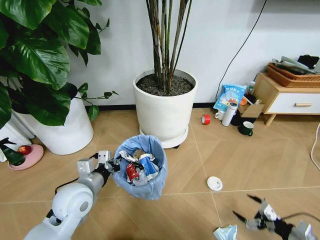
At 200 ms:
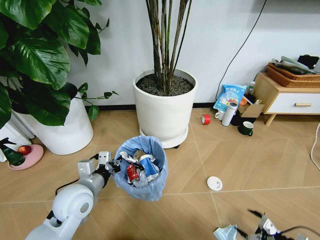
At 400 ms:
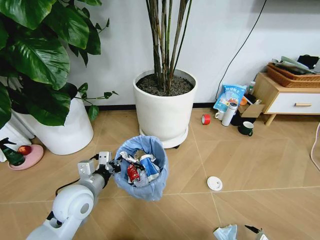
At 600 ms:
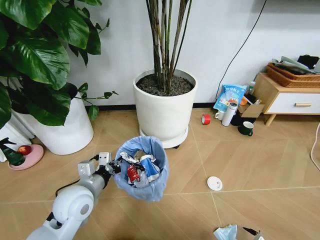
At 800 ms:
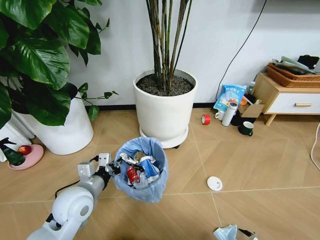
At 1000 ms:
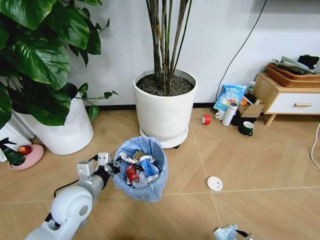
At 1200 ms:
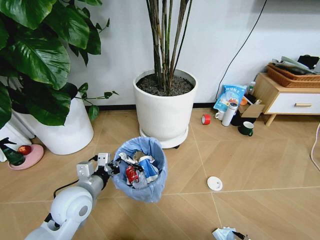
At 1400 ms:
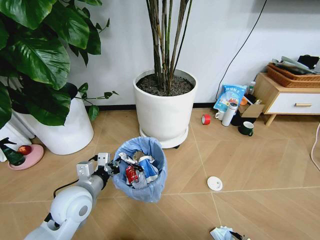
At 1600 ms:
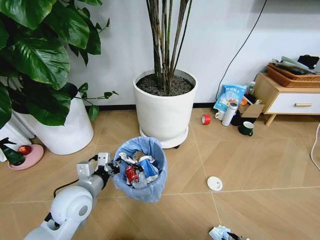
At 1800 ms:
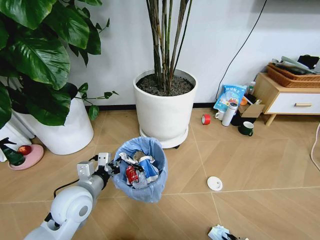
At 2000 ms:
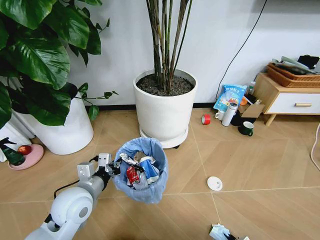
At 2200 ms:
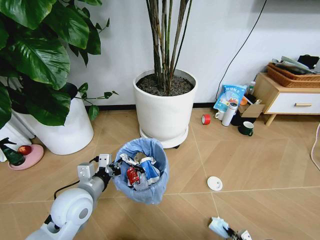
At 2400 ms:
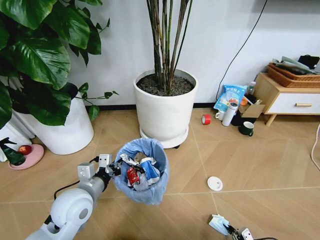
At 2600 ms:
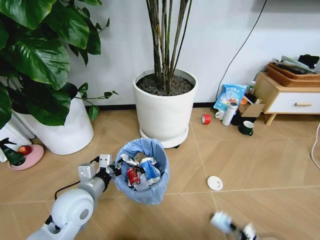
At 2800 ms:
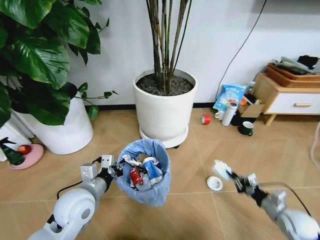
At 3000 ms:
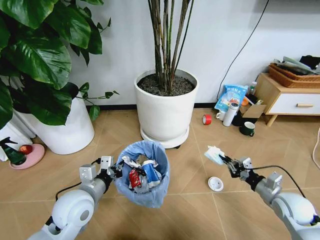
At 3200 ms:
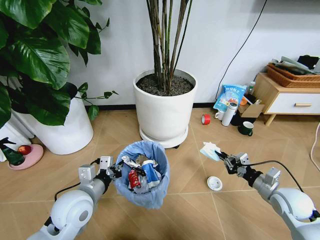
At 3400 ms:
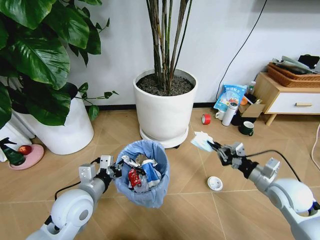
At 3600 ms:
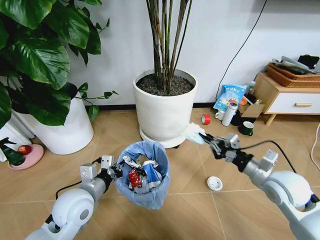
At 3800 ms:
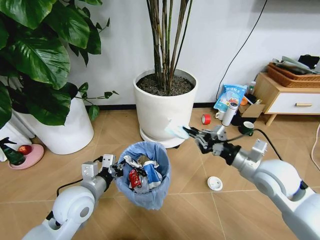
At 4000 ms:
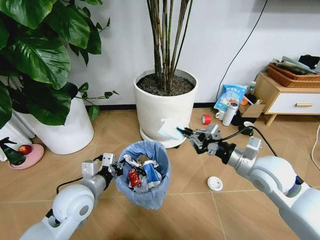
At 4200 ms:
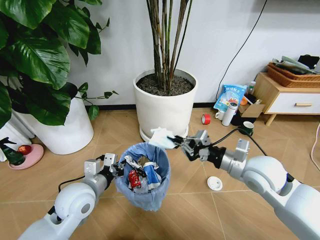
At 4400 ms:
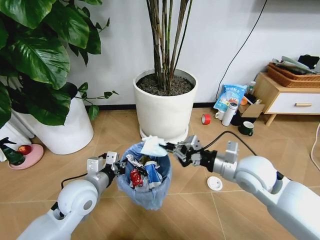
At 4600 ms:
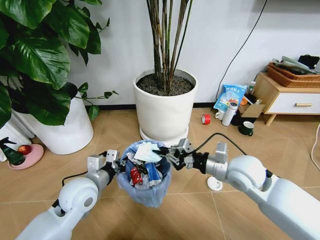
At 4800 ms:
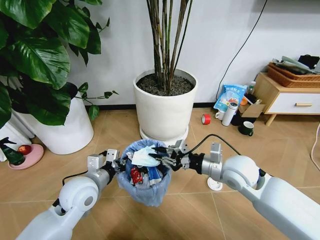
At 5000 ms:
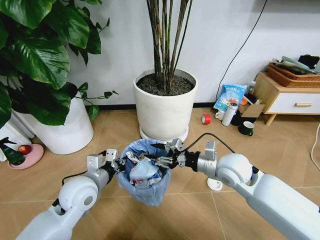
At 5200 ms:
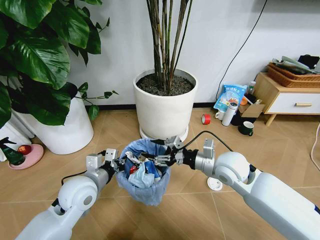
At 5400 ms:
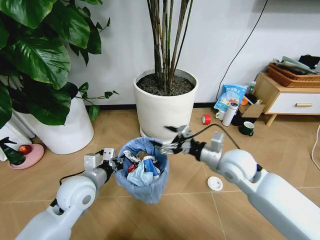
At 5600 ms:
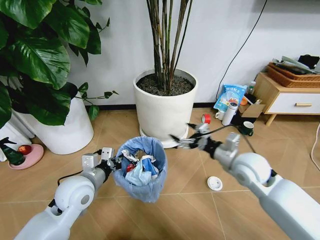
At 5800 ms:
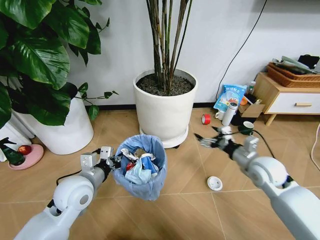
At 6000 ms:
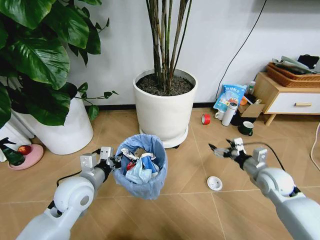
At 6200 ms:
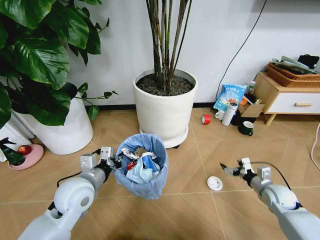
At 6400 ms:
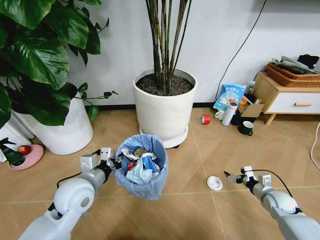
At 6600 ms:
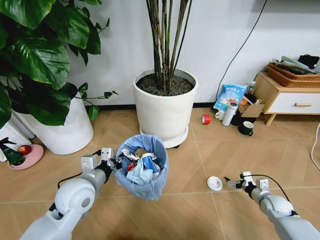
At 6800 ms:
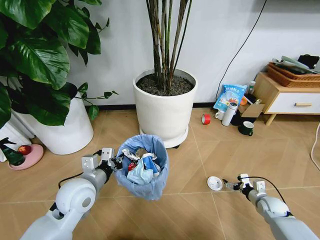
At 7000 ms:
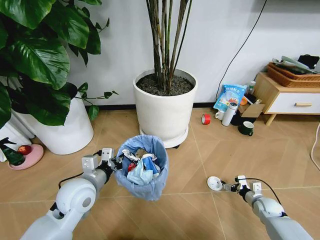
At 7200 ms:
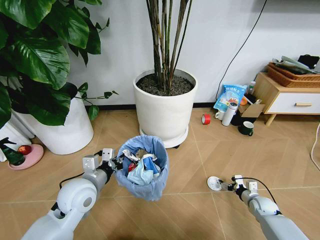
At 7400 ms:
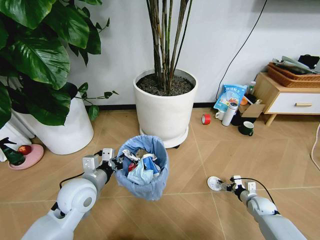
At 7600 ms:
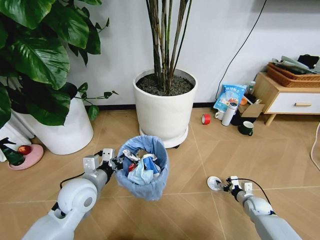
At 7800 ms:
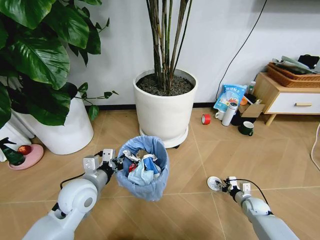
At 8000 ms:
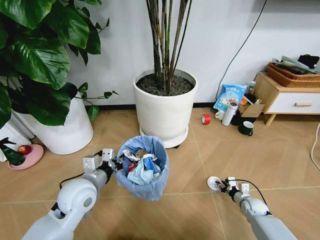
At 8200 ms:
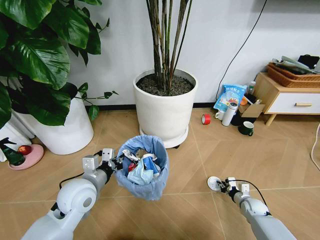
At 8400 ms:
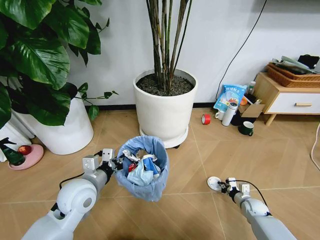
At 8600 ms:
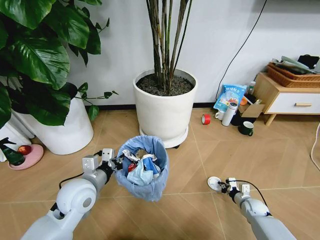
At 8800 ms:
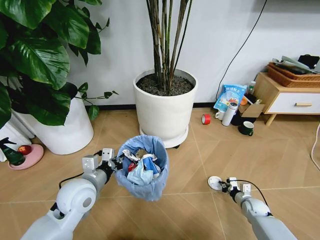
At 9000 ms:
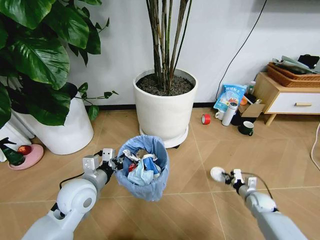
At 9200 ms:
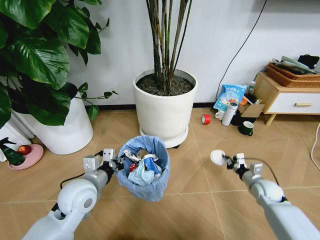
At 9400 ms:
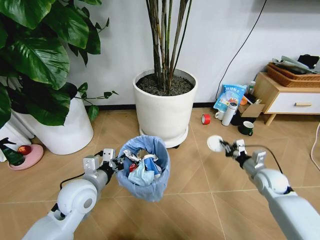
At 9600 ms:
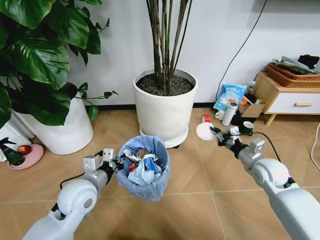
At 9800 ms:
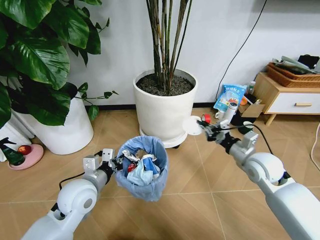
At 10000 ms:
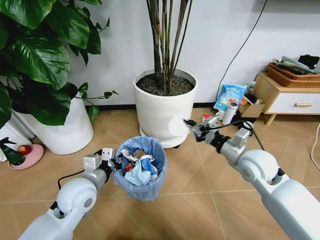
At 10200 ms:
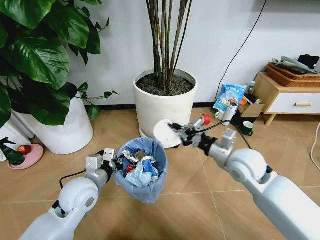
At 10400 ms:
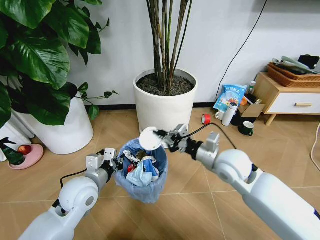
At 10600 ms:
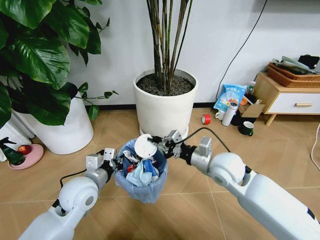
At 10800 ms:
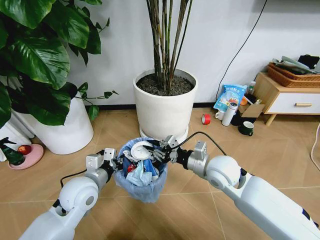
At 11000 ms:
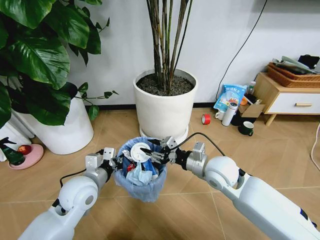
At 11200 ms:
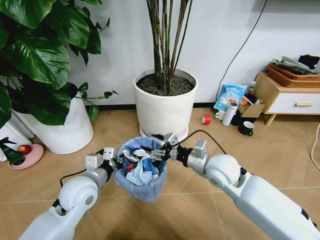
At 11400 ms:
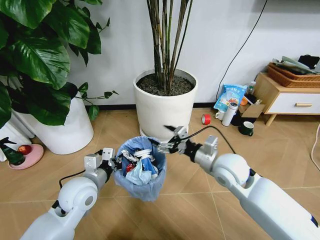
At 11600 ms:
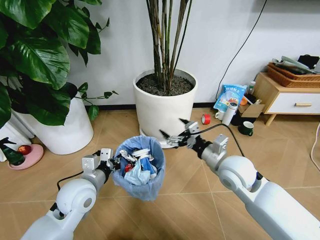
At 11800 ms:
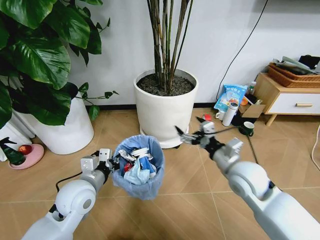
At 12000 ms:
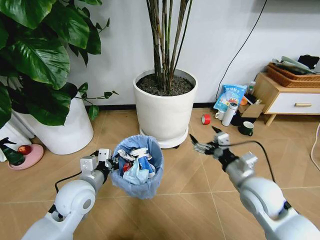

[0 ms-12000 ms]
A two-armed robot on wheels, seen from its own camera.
Task of the whole recording: Pick up the trash bin and place the garbage on the floor into it.
0 ms to 1600 ms: The right gripper goes some 20 cm downward and backward, and closes up.
1600 ms to 3000 ms: The right gripper goes approximately 30 cm forward and upward, and closes up.
3000 ms to 4400 ms: The right gripper shifts about 25 cm to the left and upward.
4400 ms to 6000 ms: The right gripper travels to the right and downward by approximately 20 cm, and opens.
6000 ms to 7600 ms: The right gripper travels downward by approximately 20 cm, and closes.
7600 ms to 9000 ms: The right gripper closes its fingers.
9000 ms to 10400 ms: The right gripper travels upward and to the left by about 35 cm.
10400 ms to 12000 ms: The right gripper moves backward and to the right, approximately 10 cm, and opens up.

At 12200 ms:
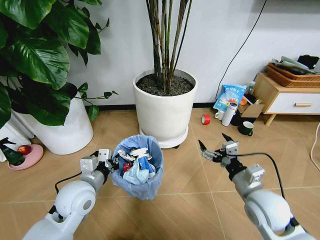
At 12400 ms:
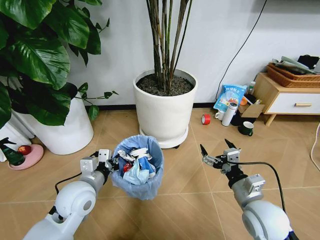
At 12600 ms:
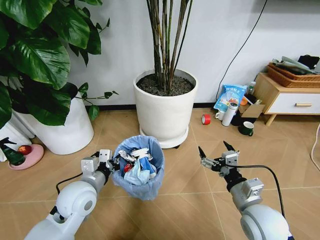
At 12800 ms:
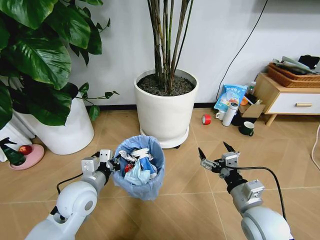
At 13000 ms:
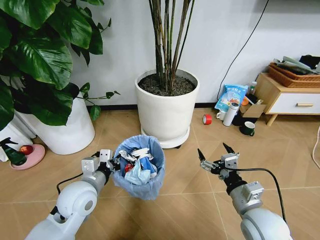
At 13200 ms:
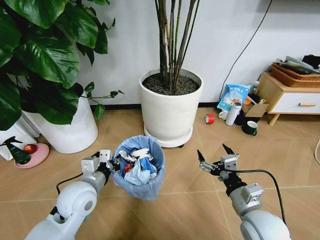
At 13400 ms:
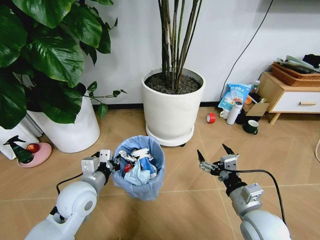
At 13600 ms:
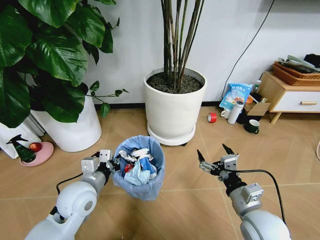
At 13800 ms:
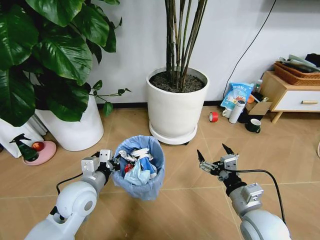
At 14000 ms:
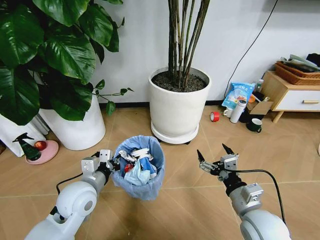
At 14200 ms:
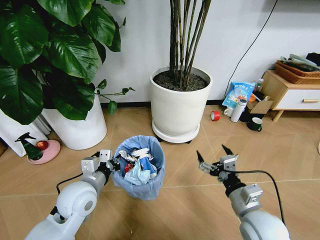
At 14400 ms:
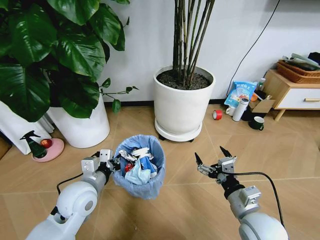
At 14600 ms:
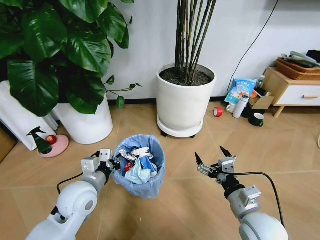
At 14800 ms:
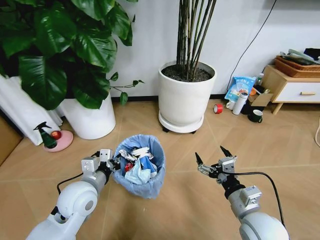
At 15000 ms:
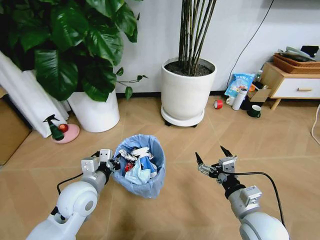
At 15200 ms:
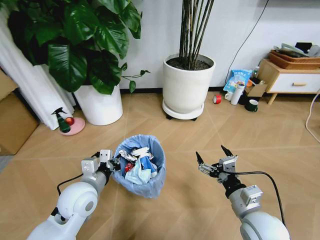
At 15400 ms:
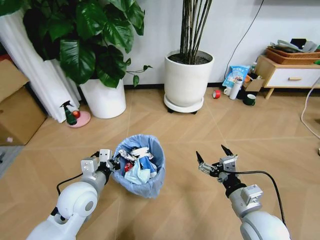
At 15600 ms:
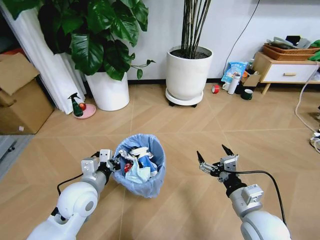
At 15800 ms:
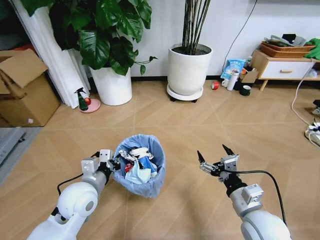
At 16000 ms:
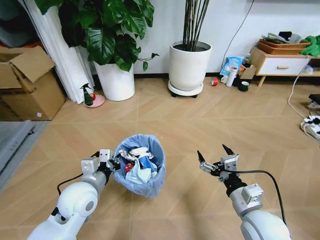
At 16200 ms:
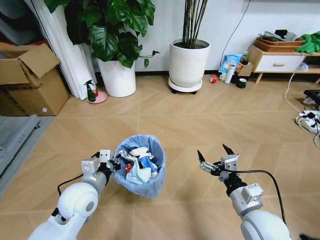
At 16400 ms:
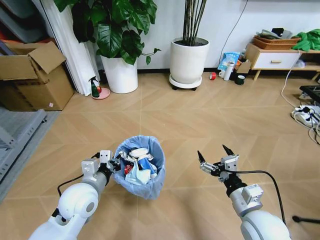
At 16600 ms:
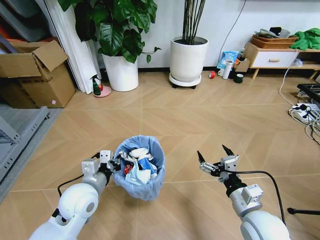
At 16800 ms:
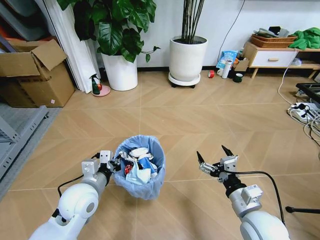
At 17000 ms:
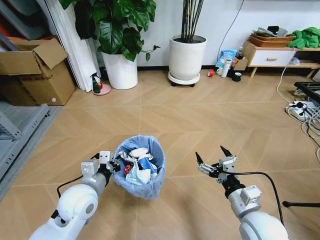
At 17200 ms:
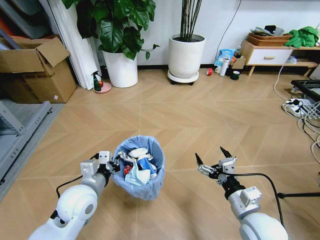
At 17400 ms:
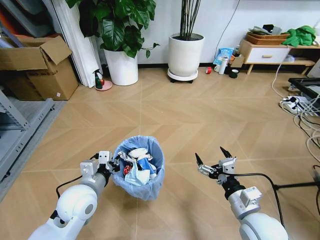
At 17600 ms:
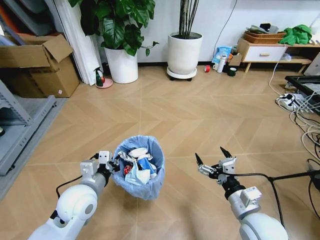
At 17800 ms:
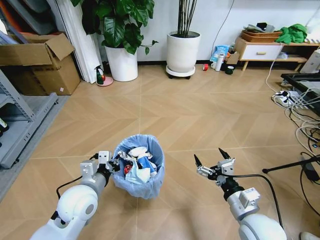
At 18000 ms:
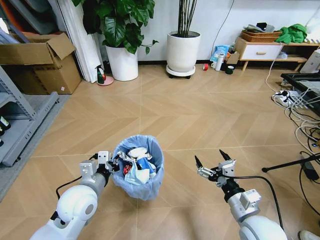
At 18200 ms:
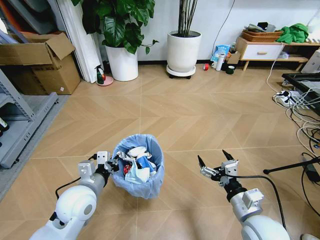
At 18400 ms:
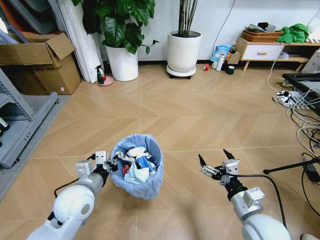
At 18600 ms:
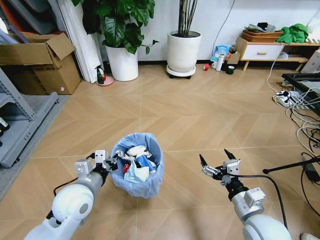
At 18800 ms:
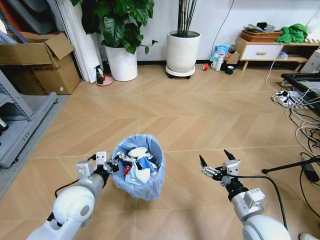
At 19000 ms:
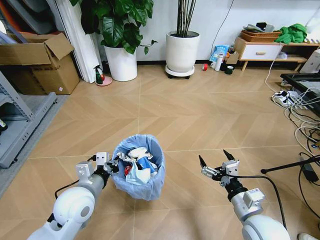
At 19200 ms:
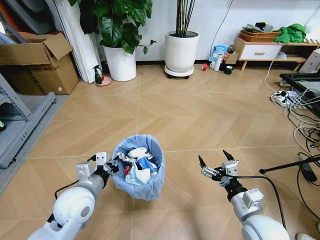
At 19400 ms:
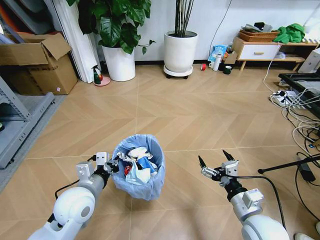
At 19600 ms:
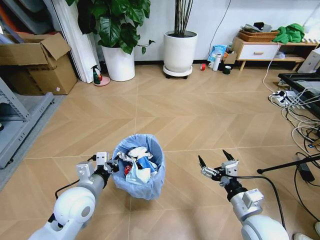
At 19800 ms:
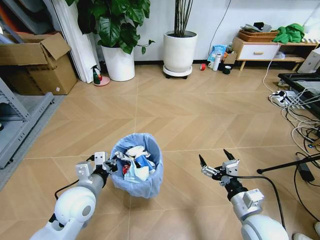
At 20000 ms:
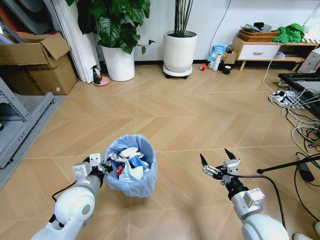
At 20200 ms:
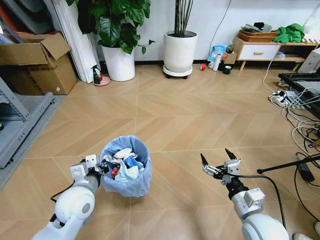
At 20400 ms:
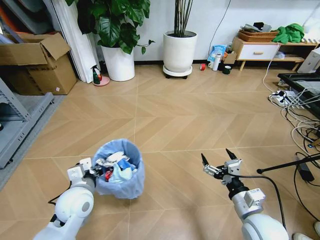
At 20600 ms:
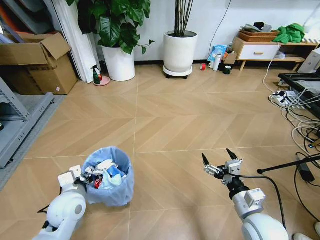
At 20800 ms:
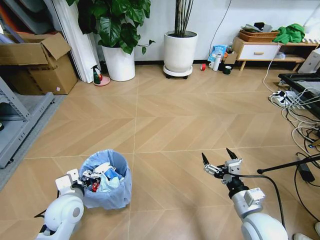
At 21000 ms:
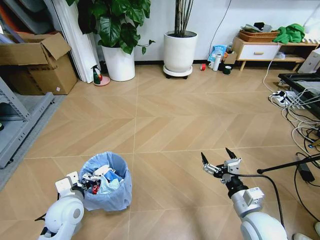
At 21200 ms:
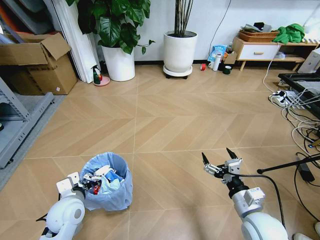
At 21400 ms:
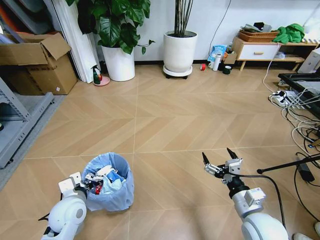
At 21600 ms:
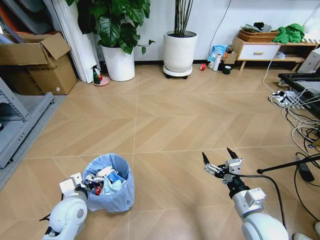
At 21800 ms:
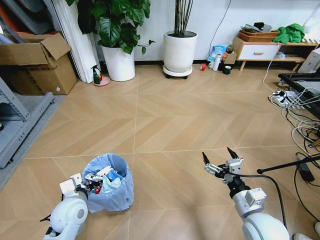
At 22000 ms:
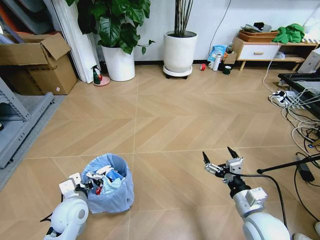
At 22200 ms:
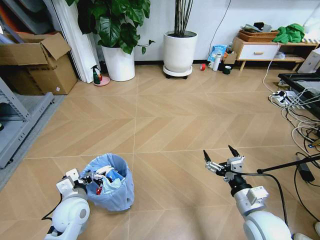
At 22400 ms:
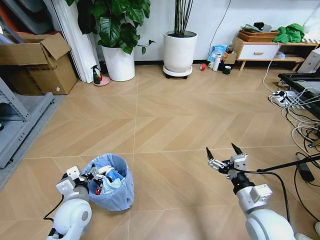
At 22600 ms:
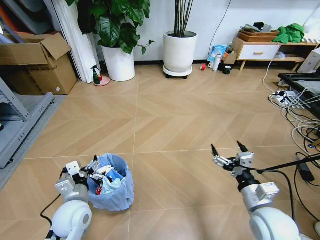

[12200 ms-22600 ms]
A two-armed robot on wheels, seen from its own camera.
Task of the whole recording: Pick up the trash bin and place the garbage on the floor into it.
12200 ms to 13600 ms: The right gripper ends up some 5 cm from where it was.
18200 ms to 19600 ms: Both grippers stay put.
19600 ms to 21200 ms: The left gripper goes some 10 cm downward and to the left.
21200 ms to 22600 ms: The left gripper opens.
